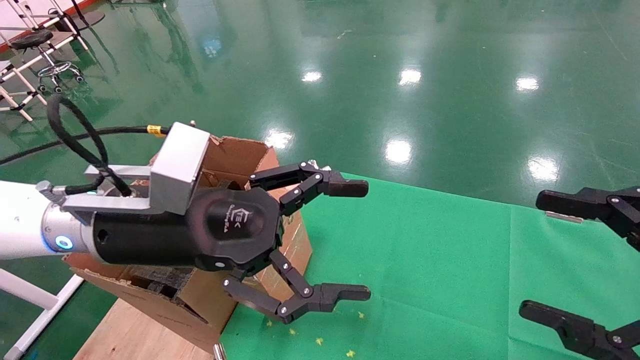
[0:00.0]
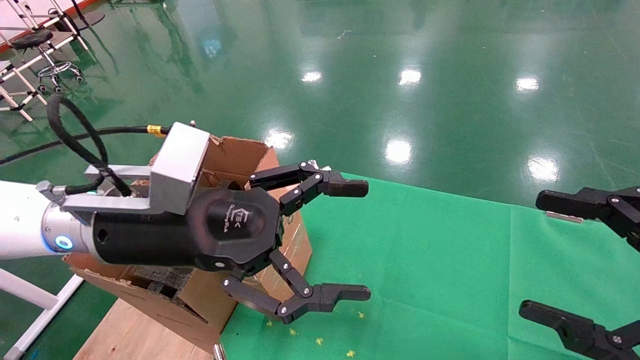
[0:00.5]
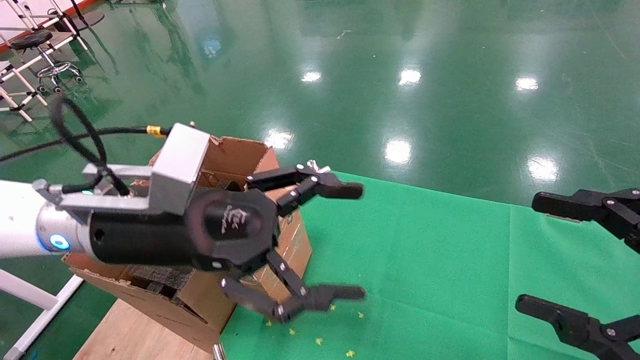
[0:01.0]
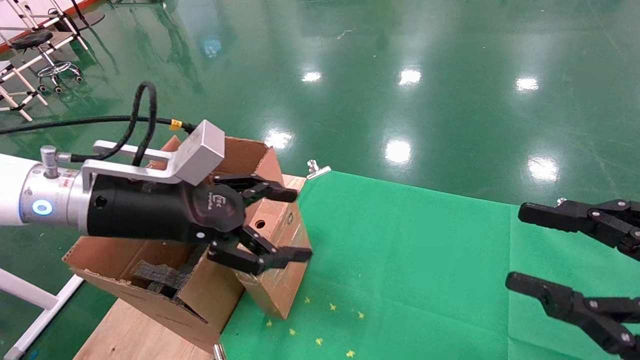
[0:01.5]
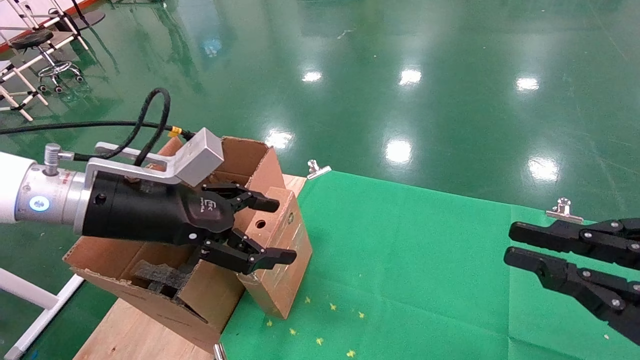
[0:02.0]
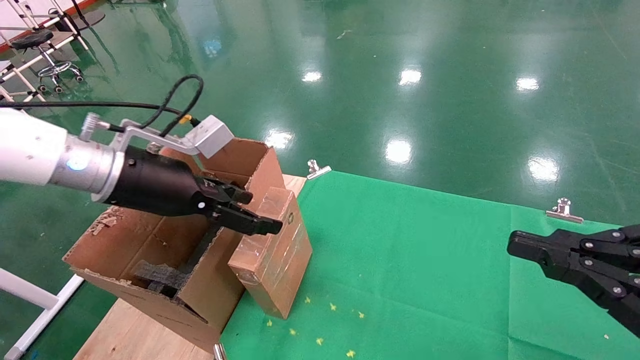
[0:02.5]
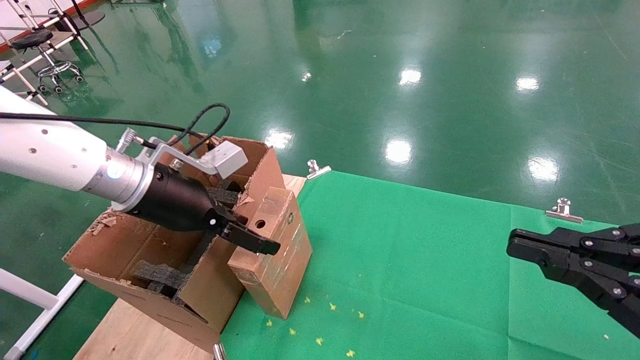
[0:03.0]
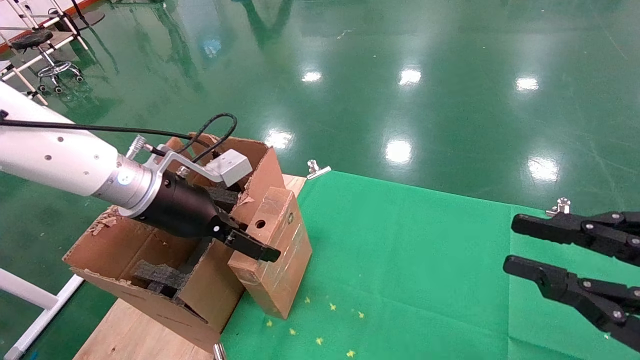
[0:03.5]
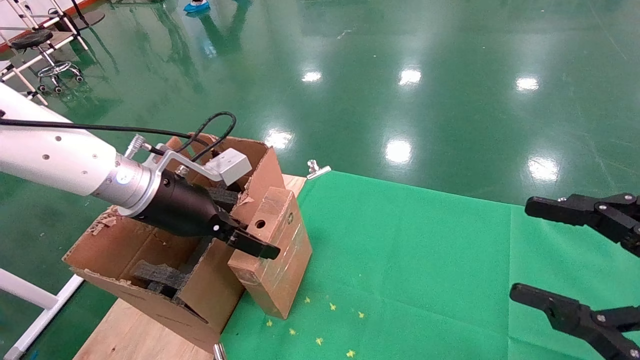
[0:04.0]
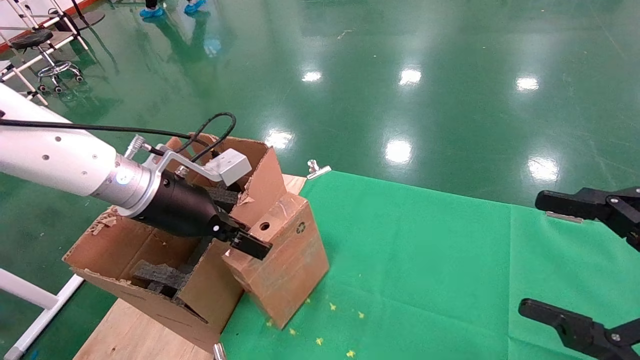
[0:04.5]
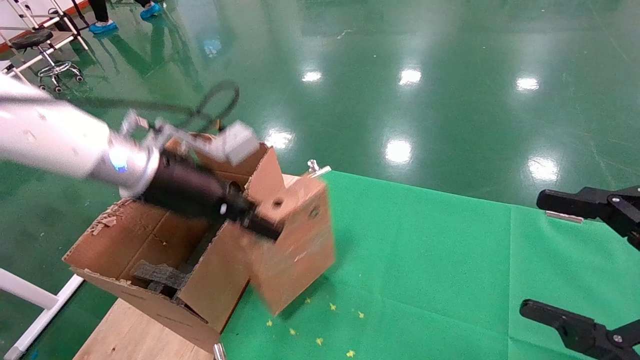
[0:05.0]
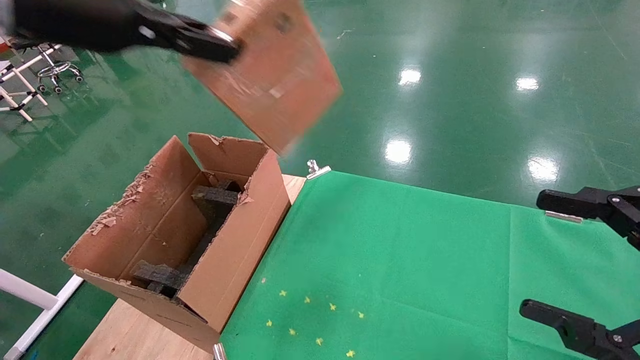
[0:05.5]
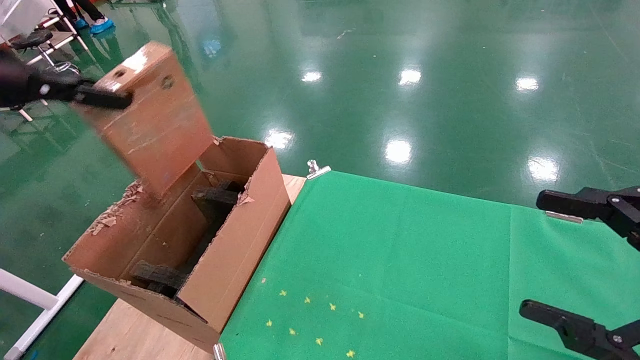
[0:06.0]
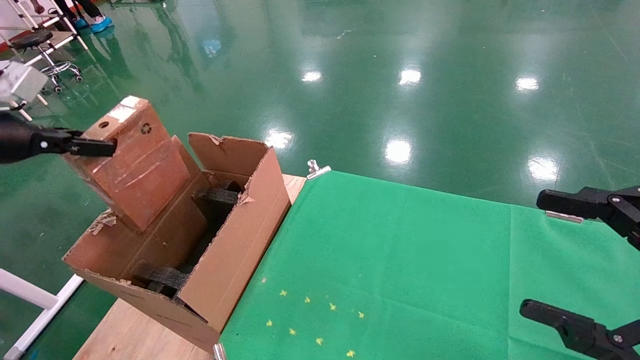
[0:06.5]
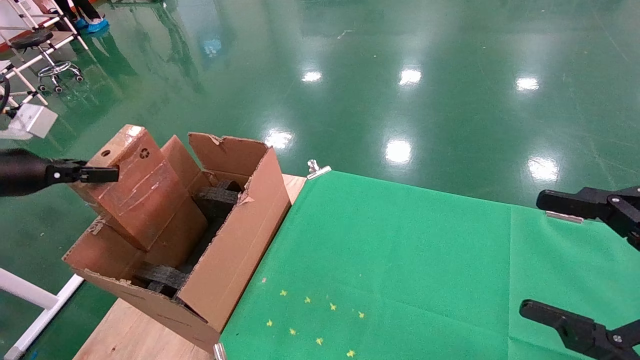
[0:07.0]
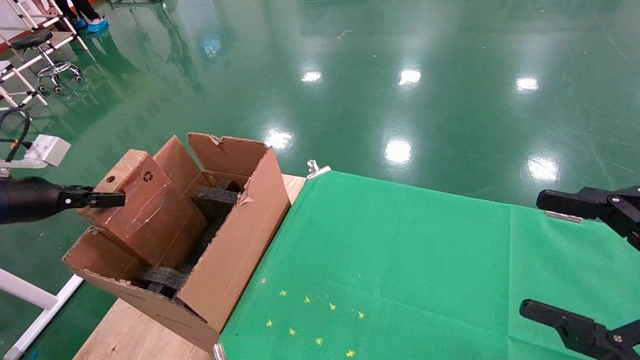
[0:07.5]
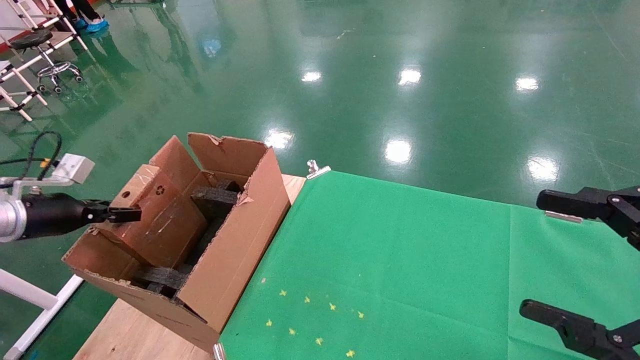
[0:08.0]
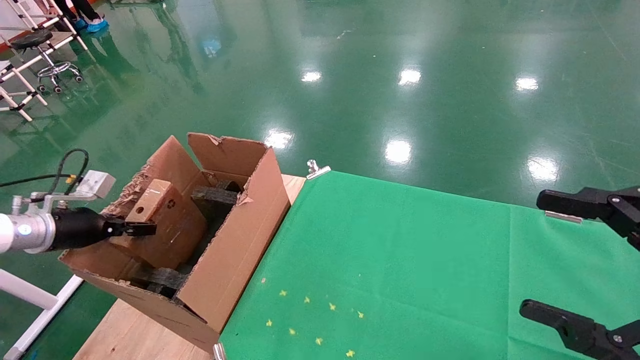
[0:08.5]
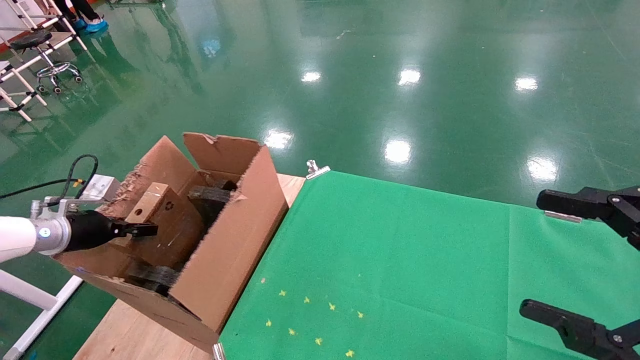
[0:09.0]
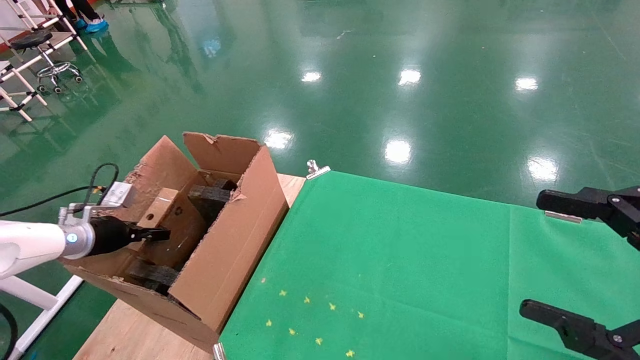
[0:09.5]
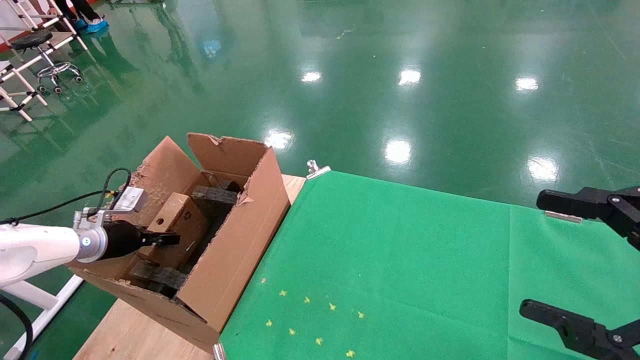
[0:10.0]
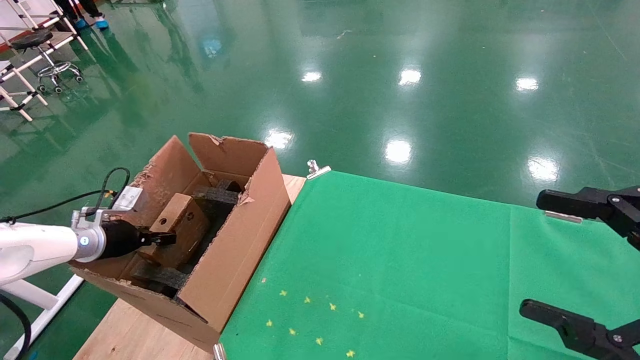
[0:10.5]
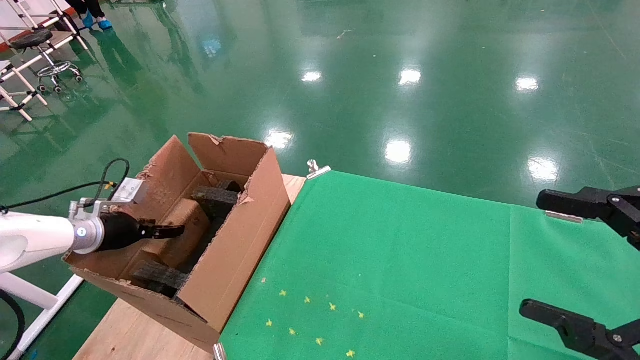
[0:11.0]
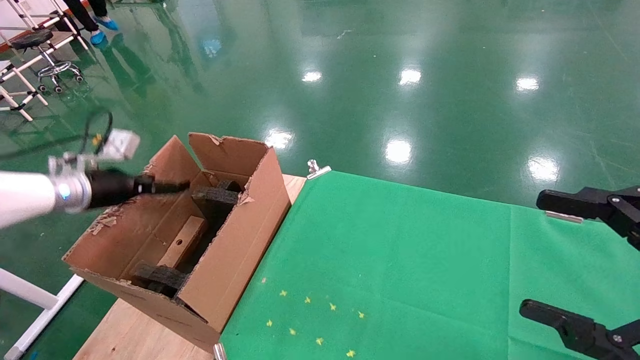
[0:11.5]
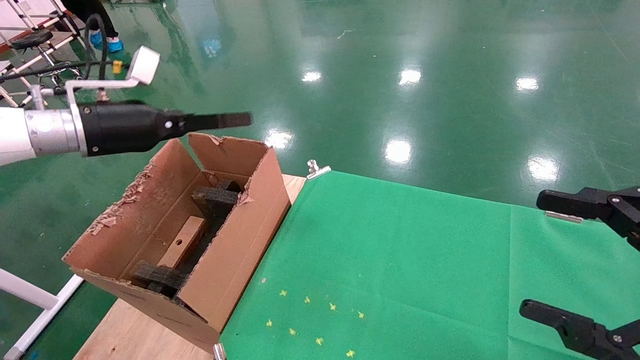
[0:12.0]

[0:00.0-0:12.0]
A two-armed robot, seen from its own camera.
Task of the whole recording: using a robotic arm to pick up a cardboard box and palace it the carton.
Step, 1.5 to 4.5 s: Pick up the mouse and the power cord paper box.
Step, 5.0 to 11.5 s: Place the mouse and the power cord paper box into the container.
0.0 to 2.0 s: The left gripper goes some 5 cm to the left. Meanwhile the right gripper closes.
2.0 to 4.0 s: The right gripper opens its fingers. The left gripper shifts some 5 cm forward.
4.0 to 6.0 s: The right gripper opens. The left gripper goes roughly 25 cm to the left and upward, and closes its fingers.
6.0 to 8.0 s: The left gripper moves downward, roughly 20 cm.
8.0 to 10.0 s: The left gripper travels downward and forward by some 10 cm.
10.0 to 12.0 s: The left gripper goes roughly 25 cm upward and to the right, and opens up.

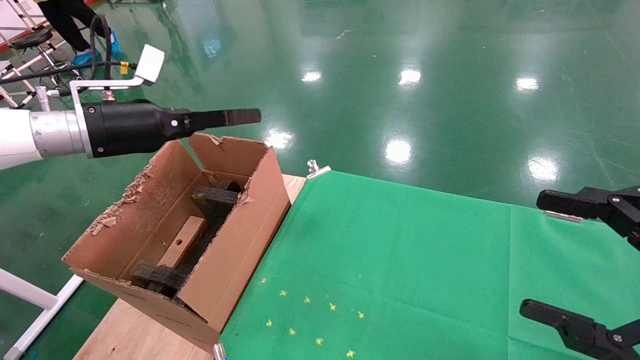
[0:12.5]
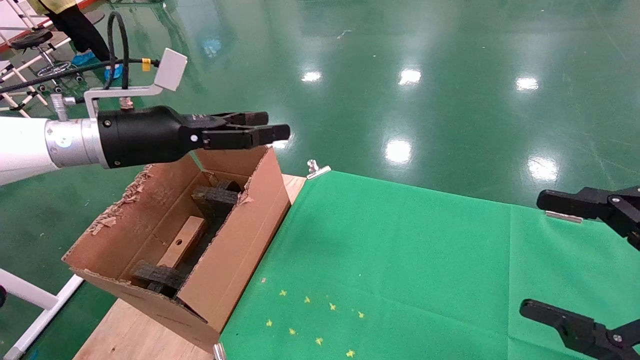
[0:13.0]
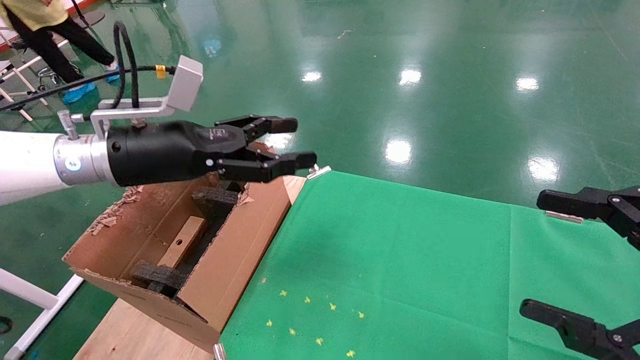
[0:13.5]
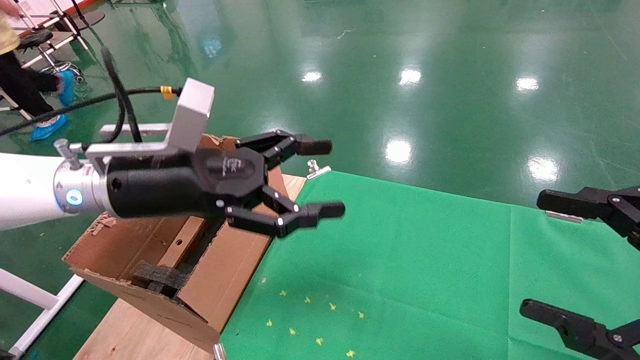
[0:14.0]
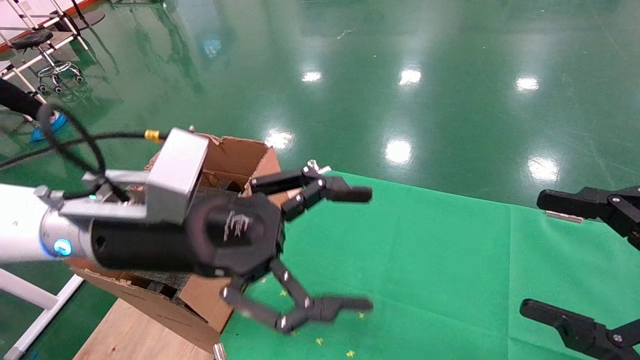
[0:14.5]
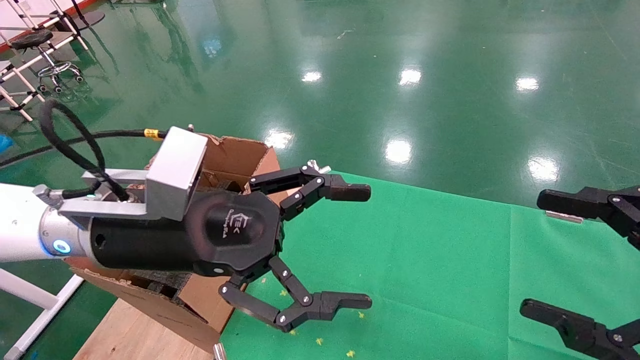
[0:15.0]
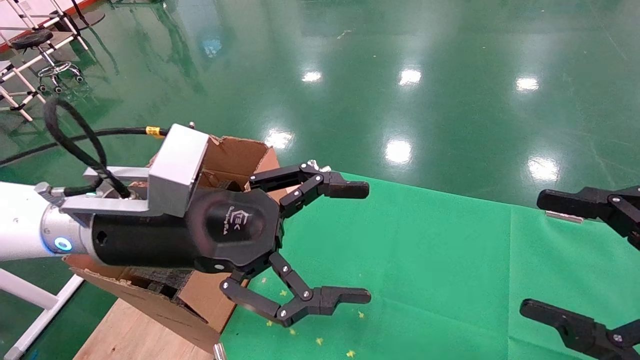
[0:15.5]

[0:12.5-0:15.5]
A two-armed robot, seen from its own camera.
Task of the whole recording: using a robotic arm to pick up a cardboard box and palace it the carton.
12.5 to 14.0 s: The left gripper goes some 15 cm to the right and backward.
14.0 to 15.5 s: The left gripper changes place by approximately 5 cm.

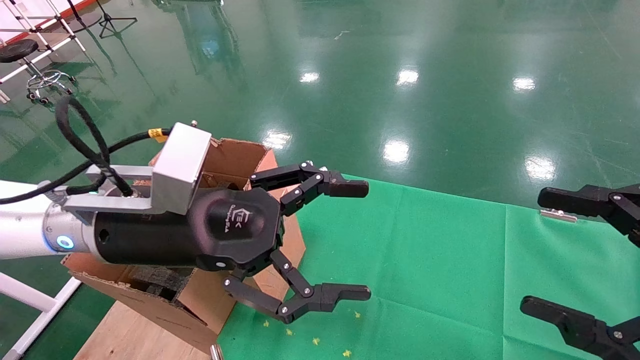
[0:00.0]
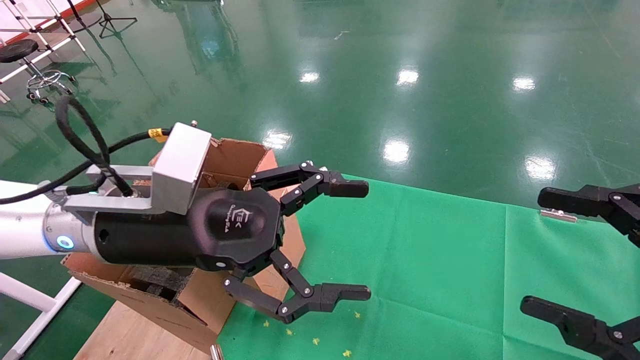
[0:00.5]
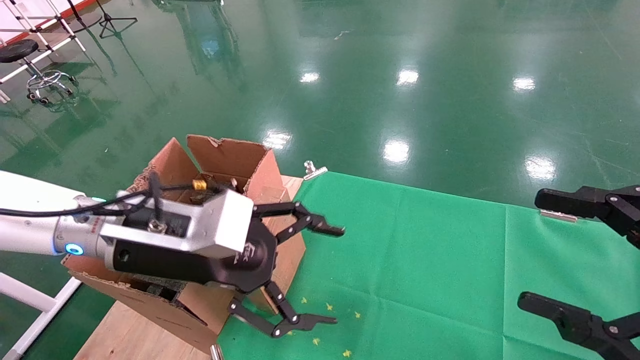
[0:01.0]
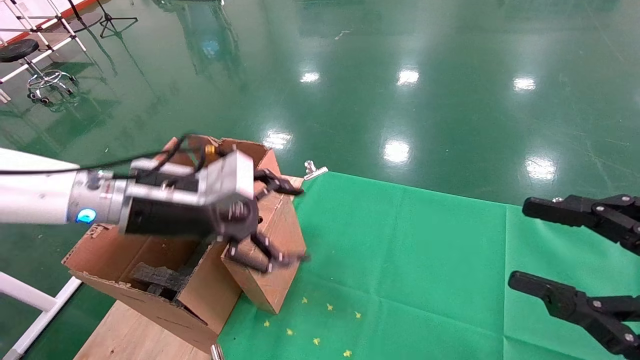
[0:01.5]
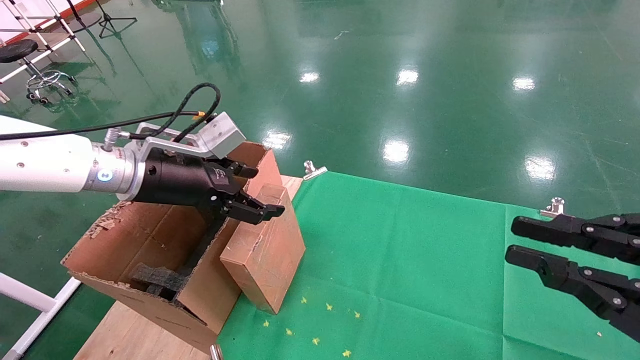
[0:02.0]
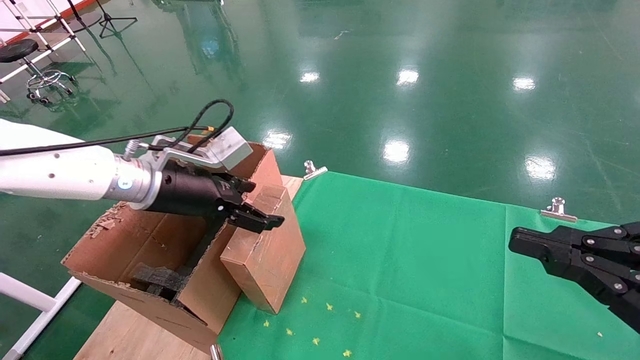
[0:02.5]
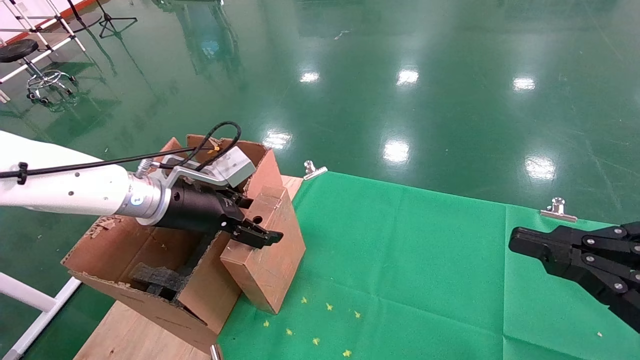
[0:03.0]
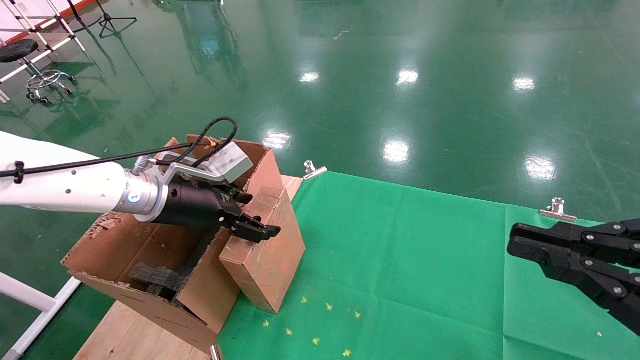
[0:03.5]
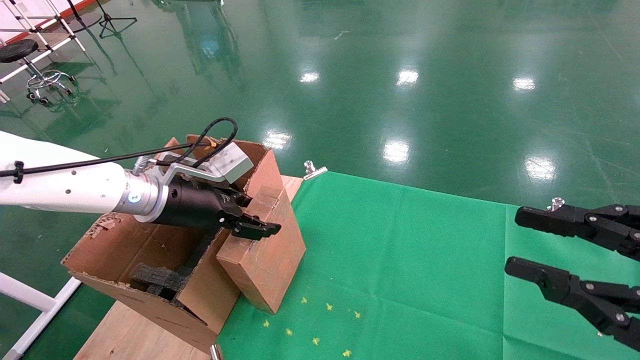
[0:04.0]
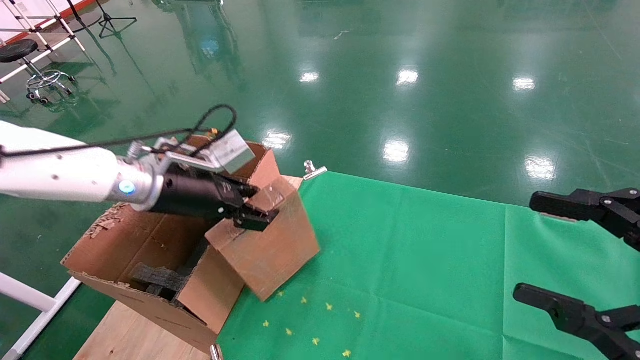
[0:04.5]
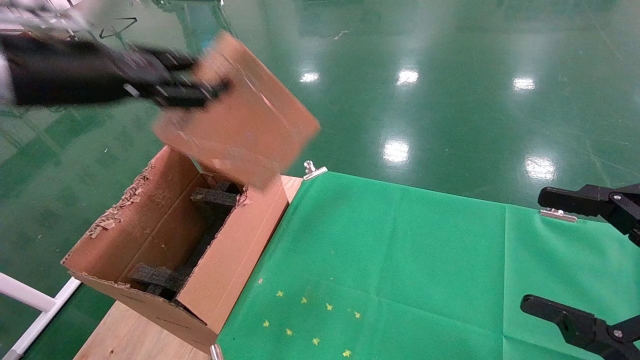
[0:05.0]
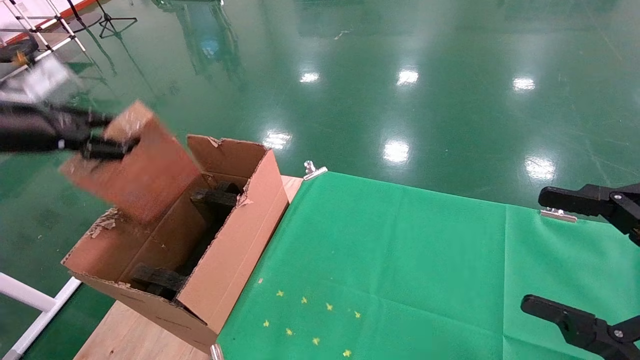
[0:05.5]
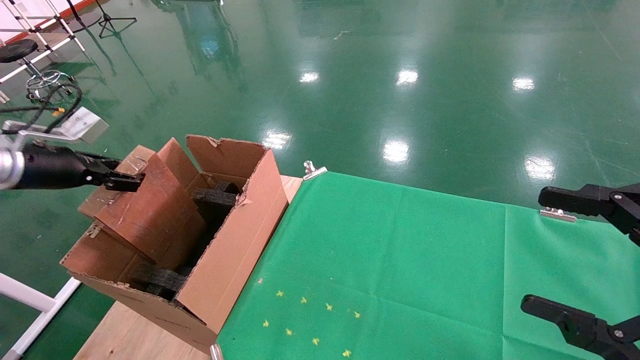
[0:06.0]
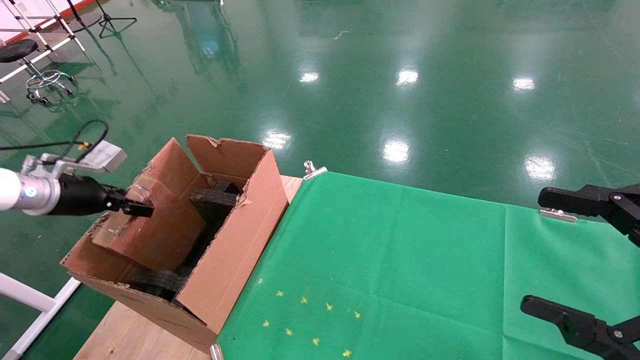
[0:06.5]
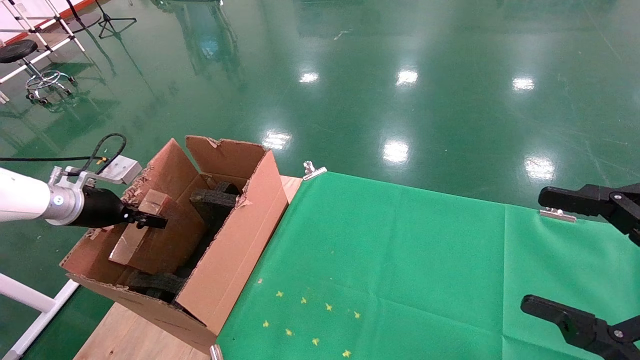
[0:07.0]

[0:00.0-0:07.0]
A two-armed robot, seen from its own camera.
Task of the whole recording: using a robotic arm to pick up a cardboard box and palace it the carton.
Step, 1.0 to 4.5 s: Pick up the mouse and the power cord paper box.
0.0 to 2.0 s: The right gripper closes. The left gripper goes roughly 10 cm forward and to the left.
2.0 to 3.5 s: There are only small adjustments of the grippers.
3.5 to 5.0 s: The right gripper opens up; the left gripper heads upward, to the left and backward, covering approximately 20 cm, and closes up.
5.0 to 7.0 s: The left gripper travels downward, to the left and forward by roughly 25 cm.
